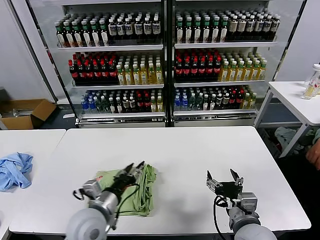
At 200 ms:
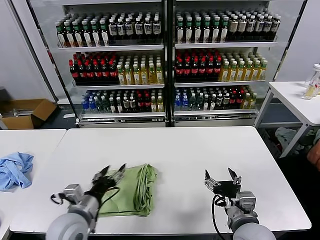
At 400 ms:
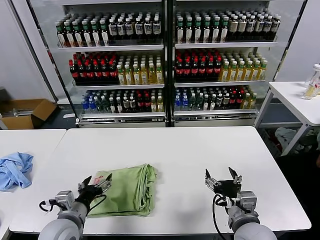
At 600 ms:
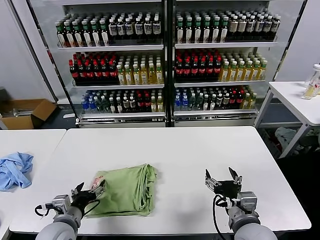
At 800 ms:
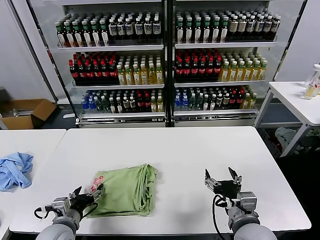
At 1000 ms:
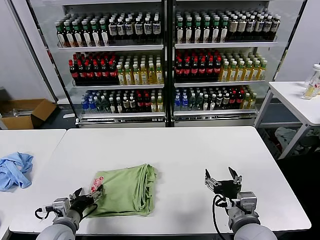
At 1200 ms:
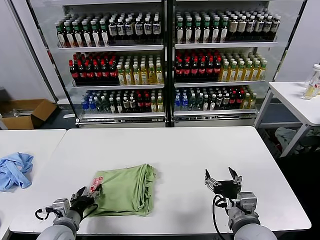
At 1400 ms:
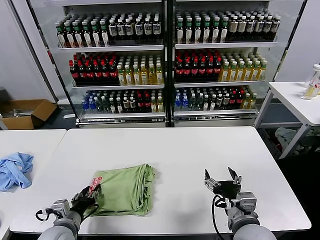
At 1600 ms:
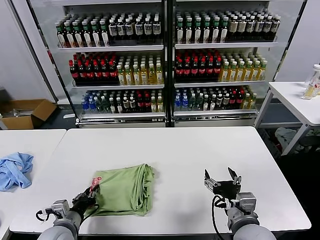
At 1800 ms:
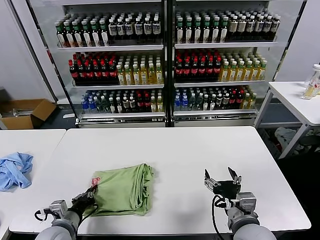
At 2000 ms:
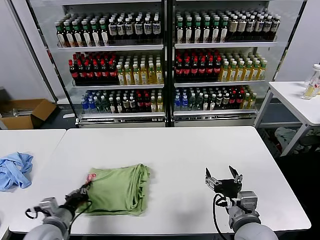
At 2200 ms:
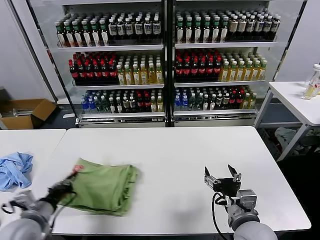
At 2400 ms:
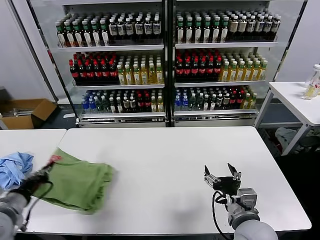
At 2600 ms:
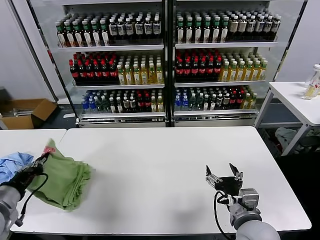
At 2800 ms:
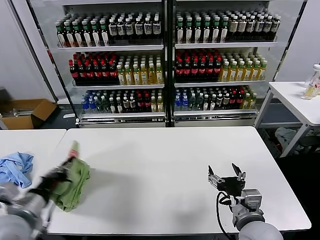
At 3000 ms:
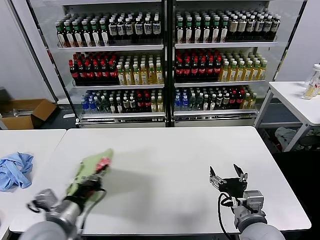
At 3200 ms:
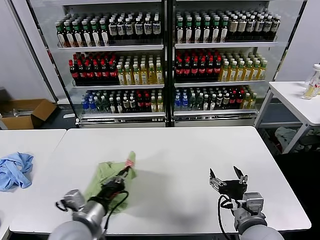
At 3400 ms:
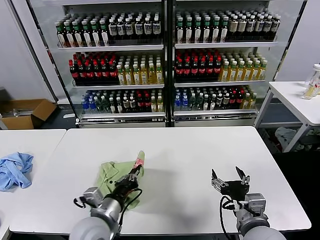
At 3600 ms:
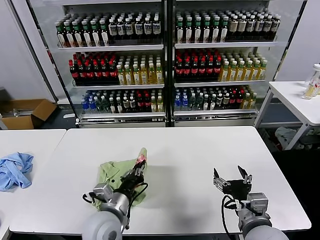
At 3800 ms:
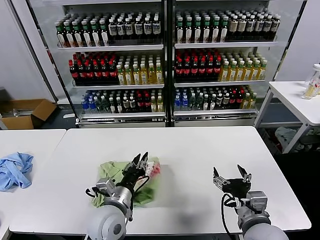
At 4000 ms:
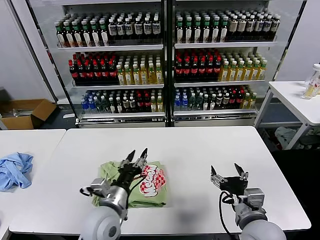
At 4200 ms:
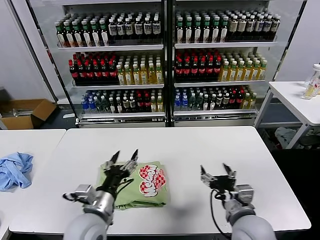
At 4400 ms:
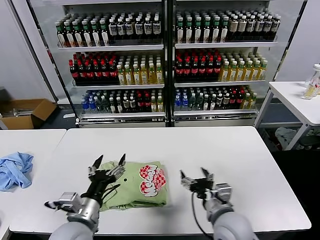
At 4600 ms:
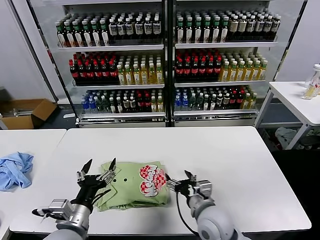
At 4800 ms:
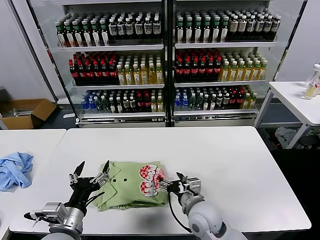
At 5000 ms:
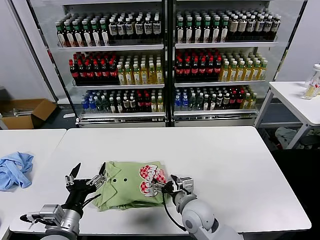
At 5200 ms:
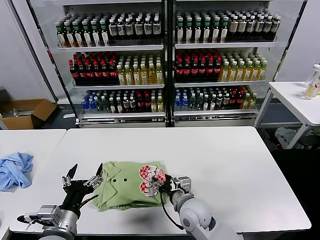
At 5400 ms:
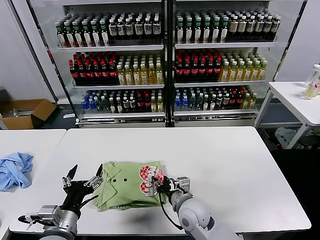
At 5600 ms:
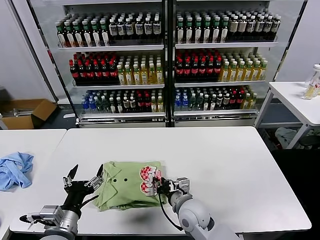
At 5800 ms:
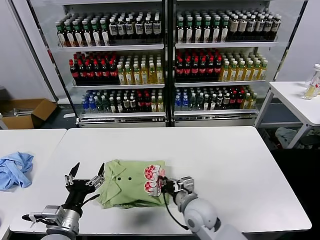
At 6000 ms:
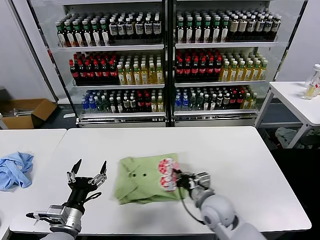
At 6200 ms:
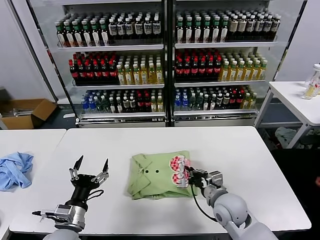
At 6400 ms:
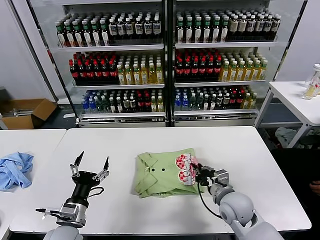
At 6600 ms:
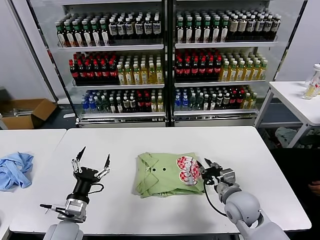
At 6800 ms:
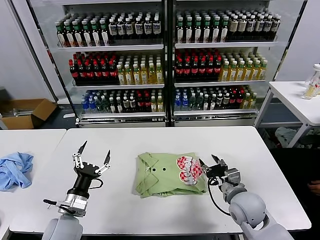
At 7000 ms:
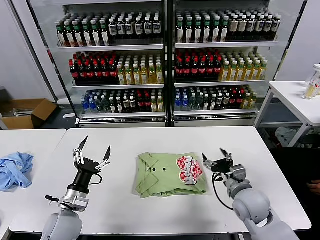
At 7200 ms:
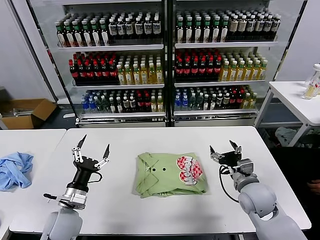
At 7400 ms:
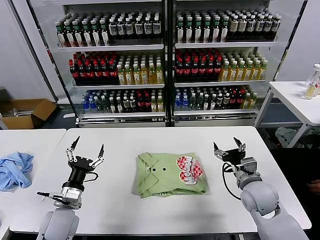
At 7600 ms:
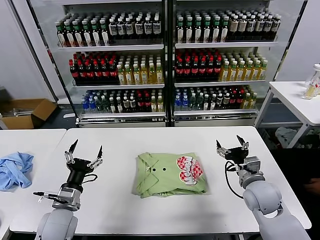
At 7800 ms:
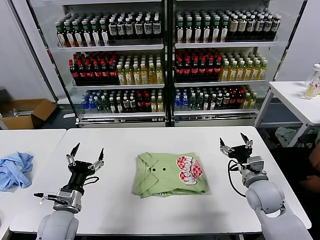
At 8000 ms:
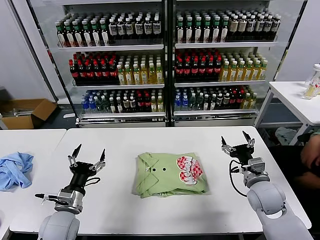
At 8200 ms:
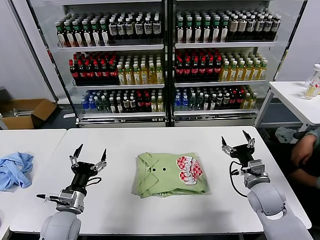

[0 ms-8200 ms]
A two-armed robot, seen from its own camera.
Task of the whole recording: fold and organize the clothes.
Step, 200 ms to 3800 ms: Flip the folded clothes over with left gripper.
Step, 4000 ms to 6600 ms: Drag the clothes to the center of the table.
0 ms to 1600 ms: The left gripper is displaced to the left and downward by about 15 cm, and opens, then closes again.
1600 ms to 3200 ms: The left gripper moves upward and to the right, about 15 cm.
3200 ms to 5000 ms: The right gripper shifts roughly 20 cm to the left, forward and downward; the left gripper travels to the right and back again, approximately 10 cm each way, and opens up.
5000 ms to 6600 ms: The left gripper is displaced downward by approximately 5 cm; the right gripper travels to the right by about 15 cm, and closes up.
6600 ms to 8200 ms: The right gripper shifts about 10 cm to the right, and opens up.
